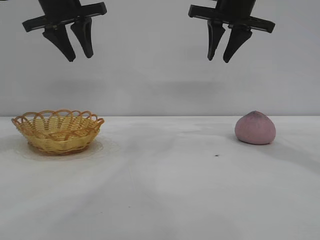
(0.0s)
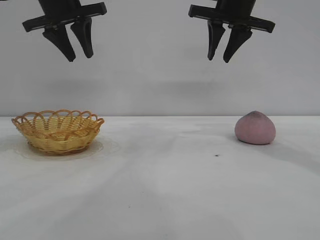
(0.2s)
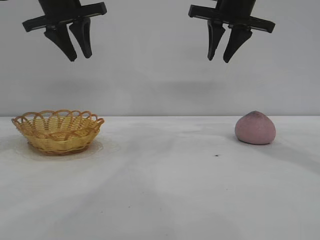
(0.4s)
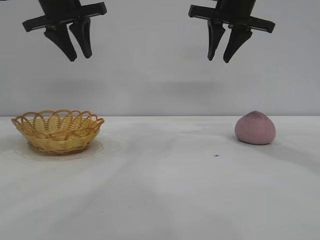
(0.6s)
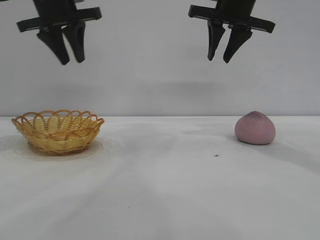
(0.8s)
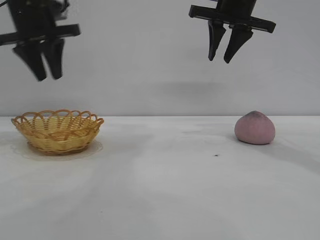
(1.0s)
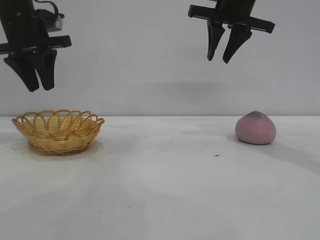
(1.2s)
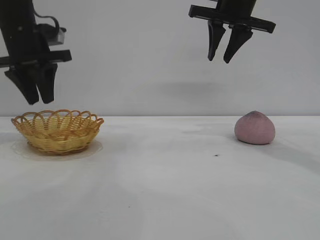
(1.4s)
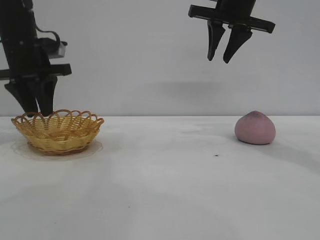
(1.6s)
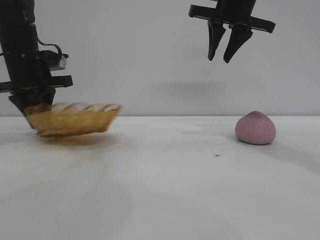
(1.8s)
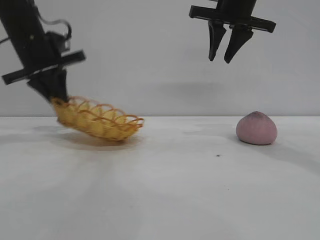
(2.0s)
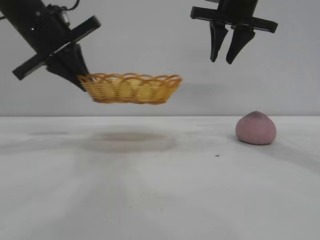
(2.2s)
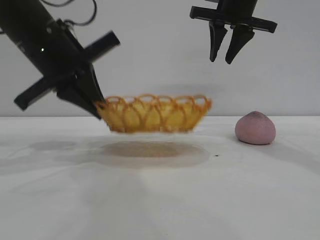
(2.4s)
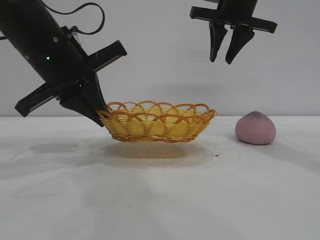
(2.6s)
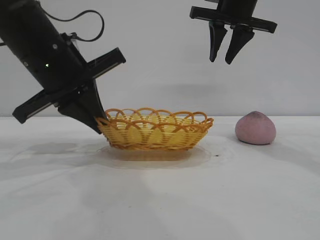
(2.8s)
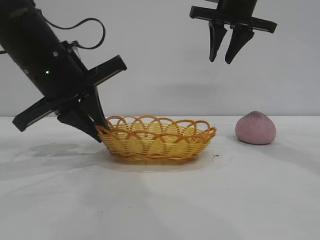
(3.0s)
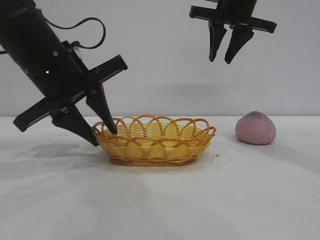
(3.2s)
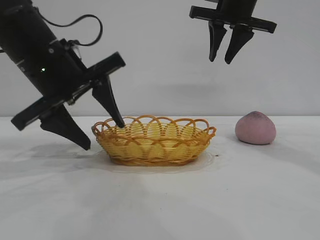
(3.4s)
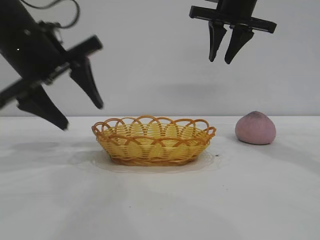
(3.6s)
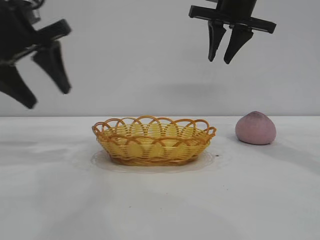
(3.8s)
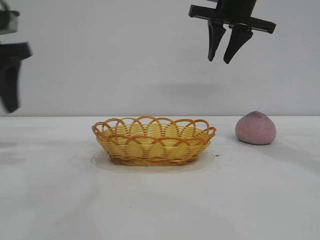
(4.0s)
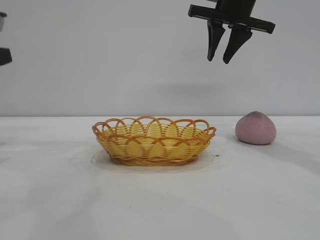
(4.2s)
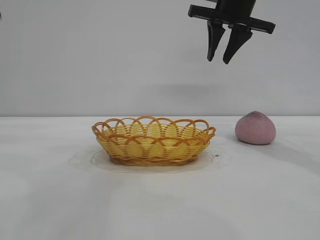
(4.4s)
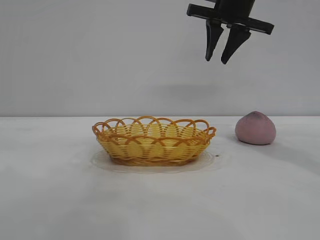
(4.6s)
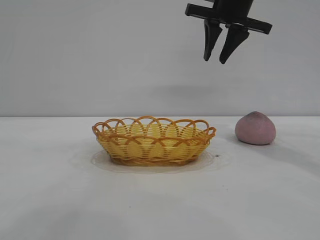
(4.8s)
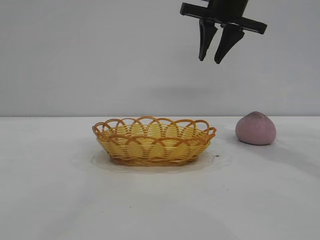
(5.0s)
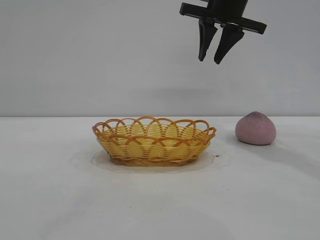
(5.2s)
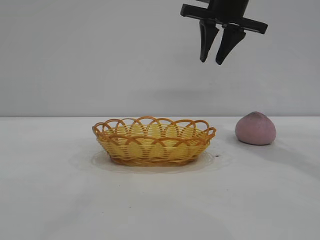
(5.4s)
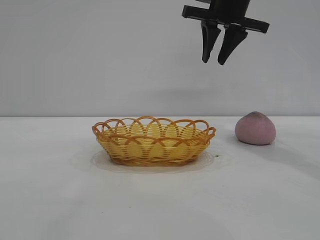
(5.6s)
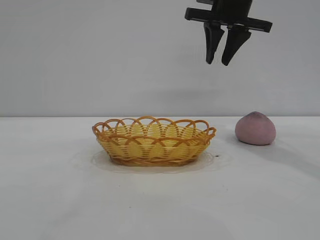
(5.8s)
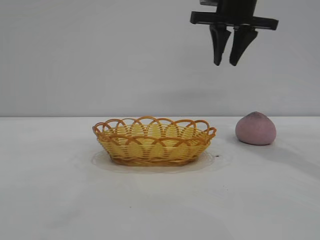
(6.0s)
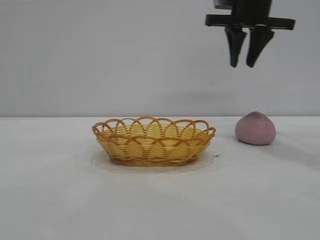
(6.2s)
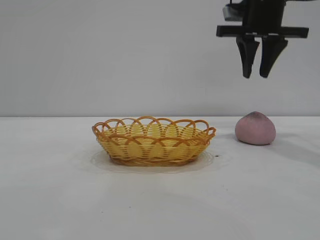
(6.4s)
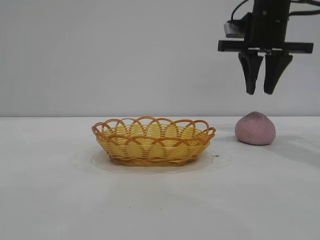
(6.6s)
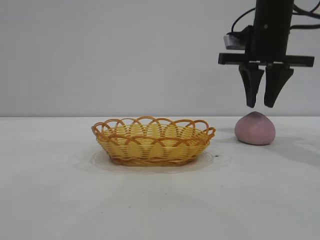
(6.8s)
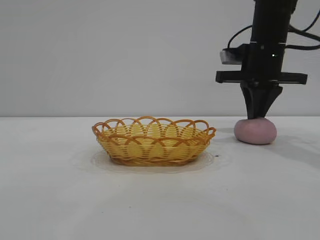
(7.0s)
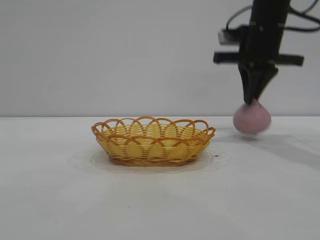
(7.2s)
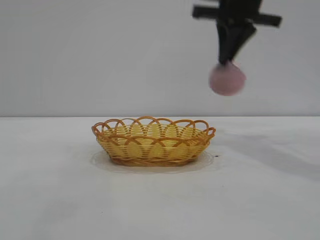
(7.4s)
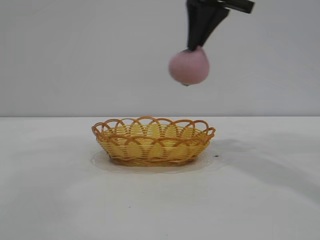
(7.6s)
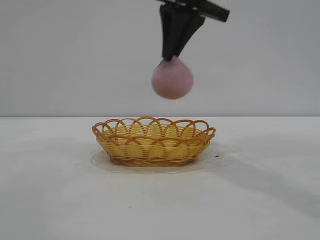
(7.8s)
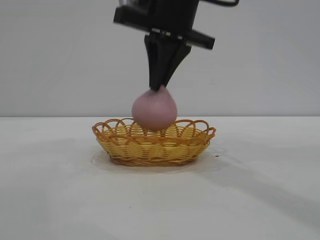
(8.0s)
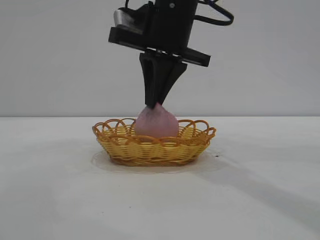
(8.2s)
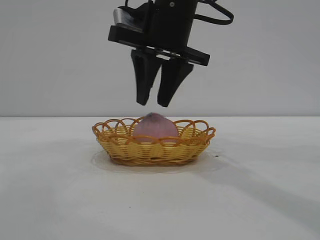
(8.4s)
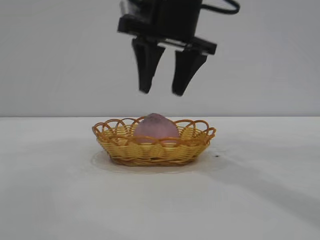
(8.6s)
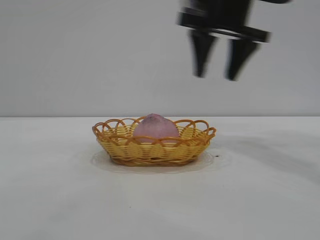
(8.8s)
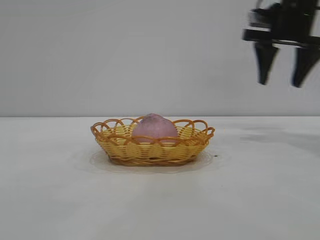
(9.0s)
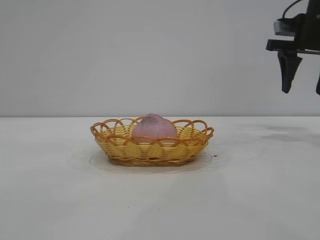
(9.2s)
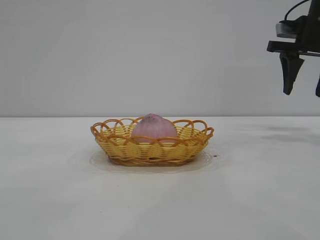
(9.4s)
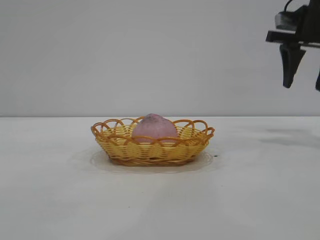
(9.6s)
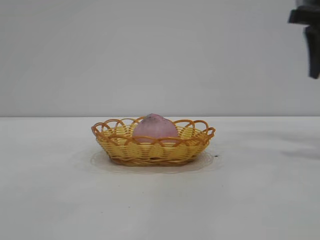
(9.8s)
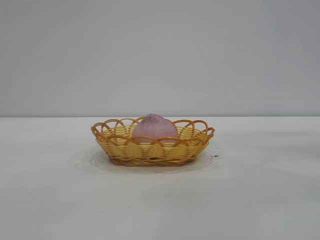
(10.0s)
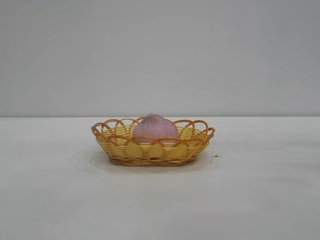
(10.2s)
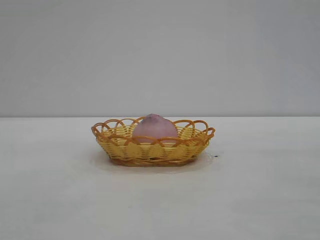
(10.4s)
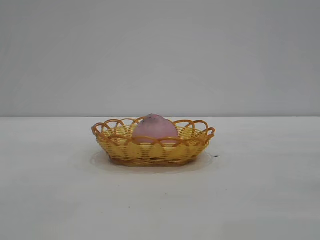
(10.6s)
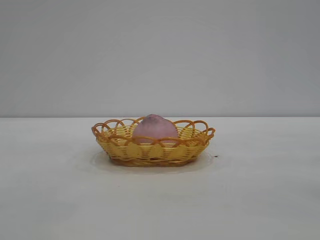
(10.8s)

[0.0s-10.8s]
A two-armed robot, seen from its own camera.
Task of the whole recording: pick up the peach and put it into the basket.
Step, 0.0s to 3.6s: Move the basket to the center of view.
Step, 3.8s to 7.2s: Pick up the peach.
Step, 7.4s to 8.6s: place the peach into the basket.
